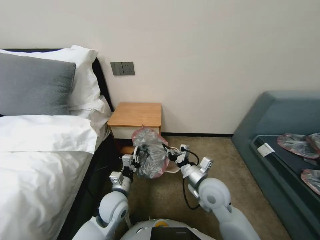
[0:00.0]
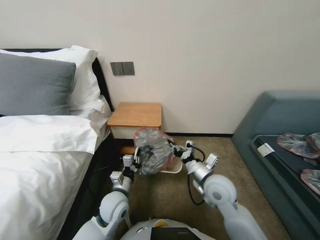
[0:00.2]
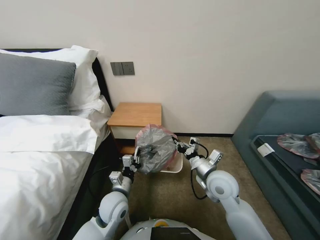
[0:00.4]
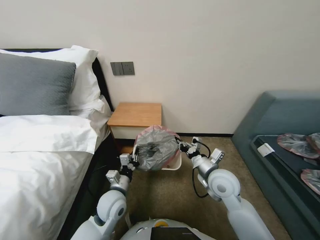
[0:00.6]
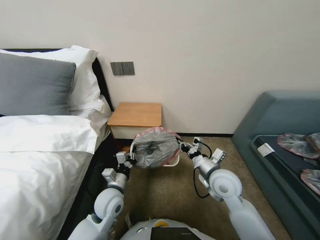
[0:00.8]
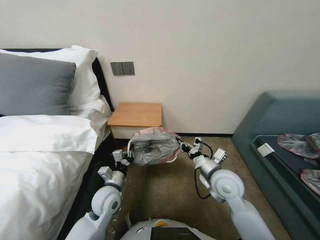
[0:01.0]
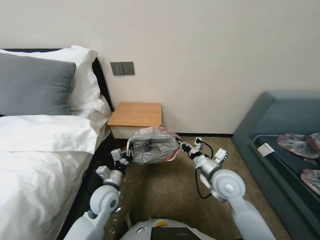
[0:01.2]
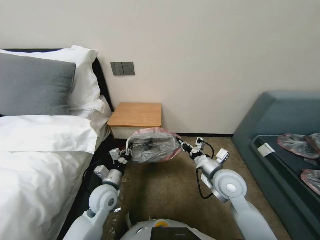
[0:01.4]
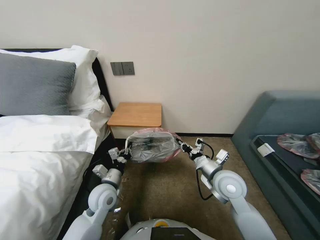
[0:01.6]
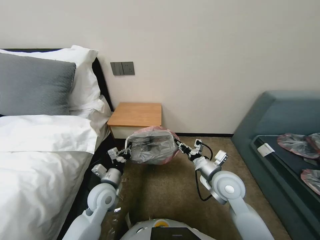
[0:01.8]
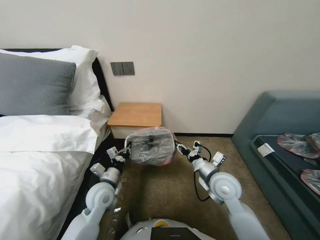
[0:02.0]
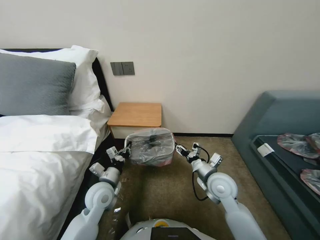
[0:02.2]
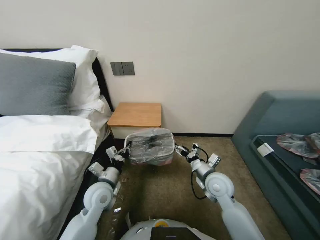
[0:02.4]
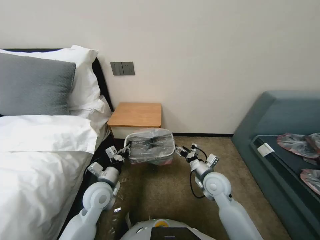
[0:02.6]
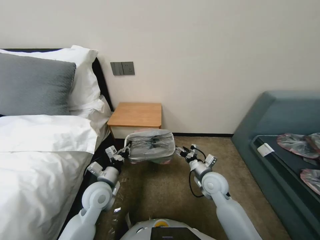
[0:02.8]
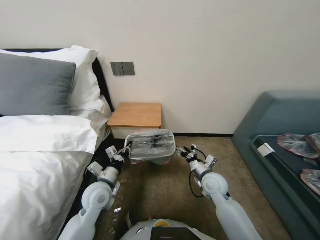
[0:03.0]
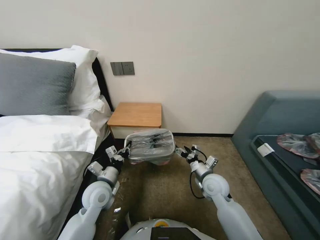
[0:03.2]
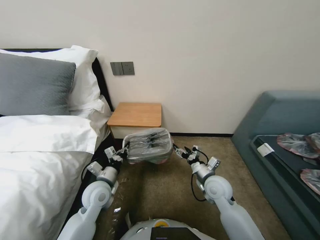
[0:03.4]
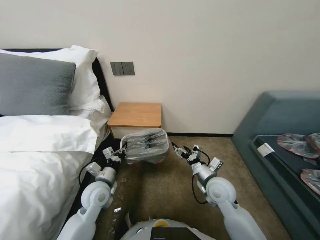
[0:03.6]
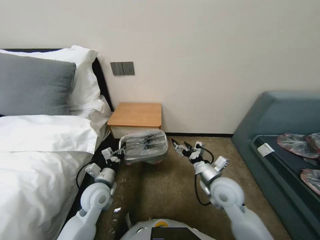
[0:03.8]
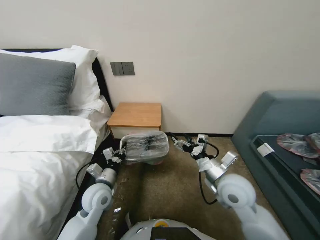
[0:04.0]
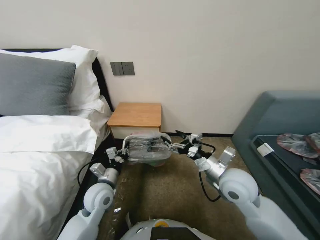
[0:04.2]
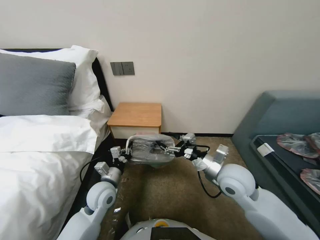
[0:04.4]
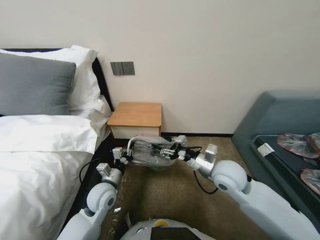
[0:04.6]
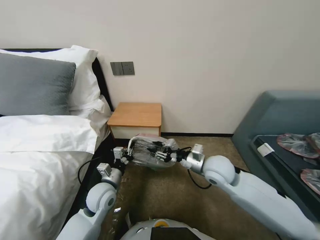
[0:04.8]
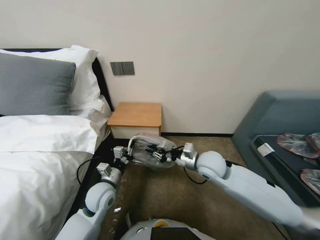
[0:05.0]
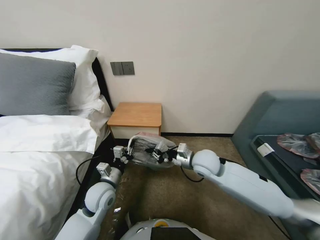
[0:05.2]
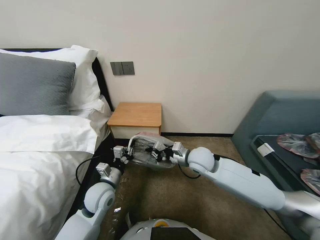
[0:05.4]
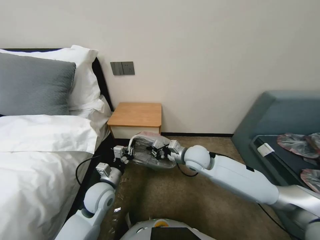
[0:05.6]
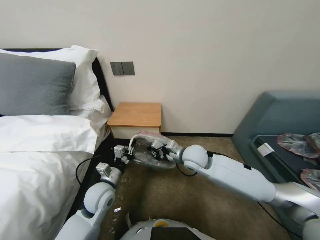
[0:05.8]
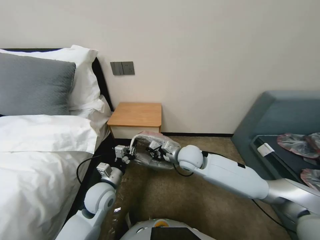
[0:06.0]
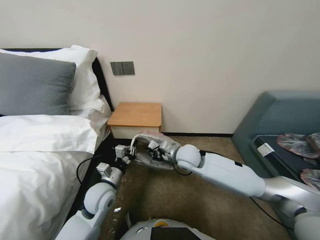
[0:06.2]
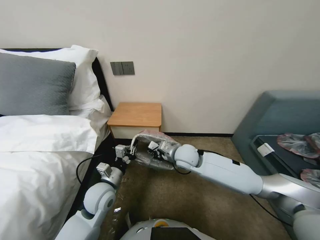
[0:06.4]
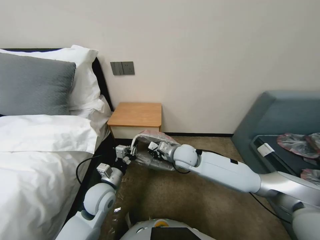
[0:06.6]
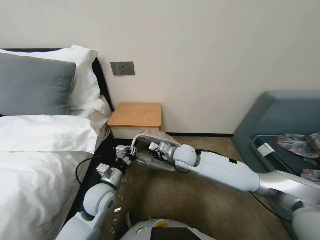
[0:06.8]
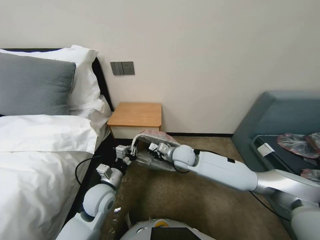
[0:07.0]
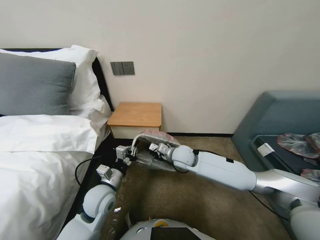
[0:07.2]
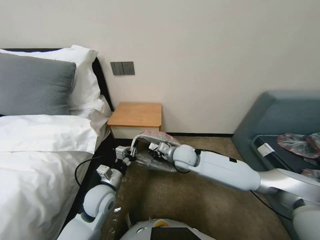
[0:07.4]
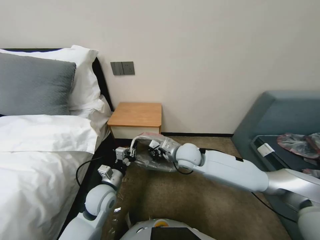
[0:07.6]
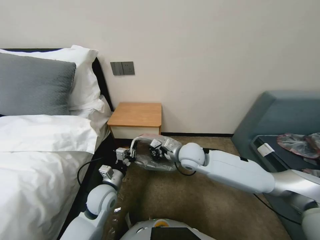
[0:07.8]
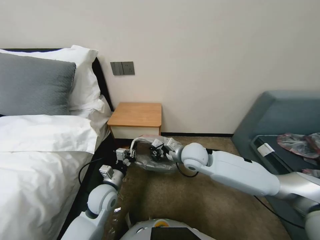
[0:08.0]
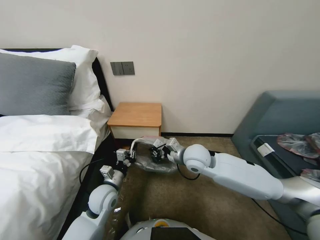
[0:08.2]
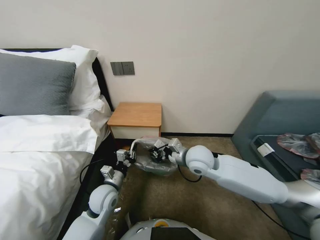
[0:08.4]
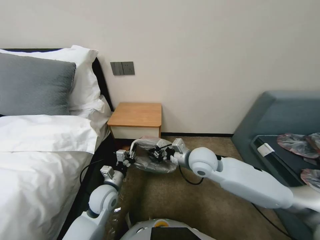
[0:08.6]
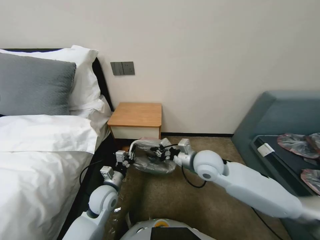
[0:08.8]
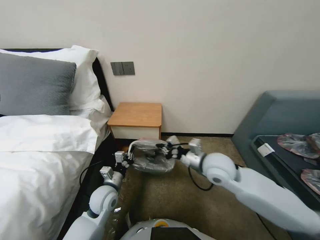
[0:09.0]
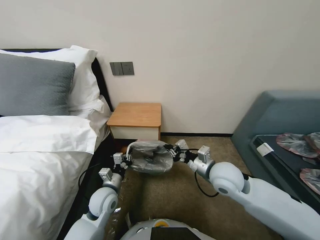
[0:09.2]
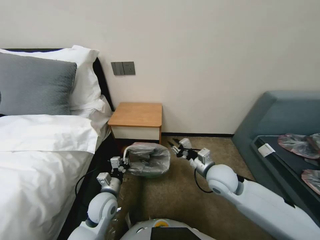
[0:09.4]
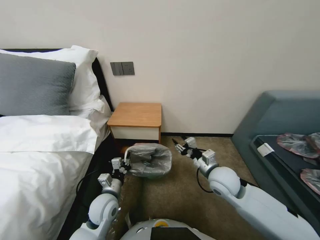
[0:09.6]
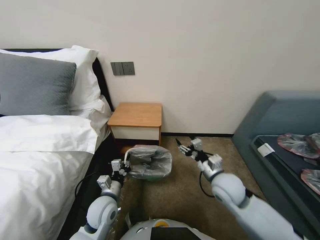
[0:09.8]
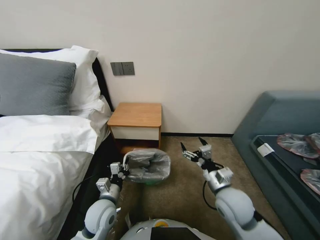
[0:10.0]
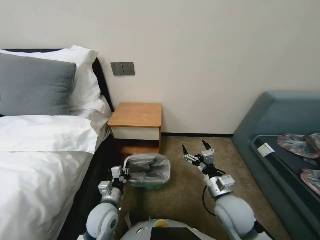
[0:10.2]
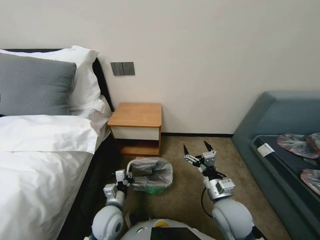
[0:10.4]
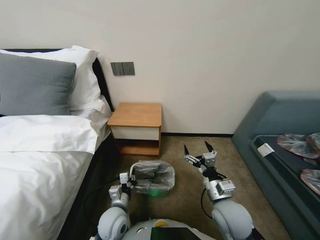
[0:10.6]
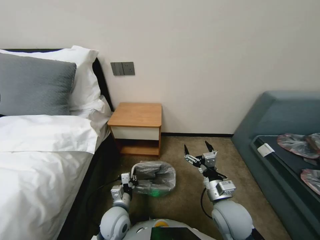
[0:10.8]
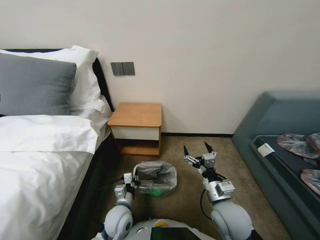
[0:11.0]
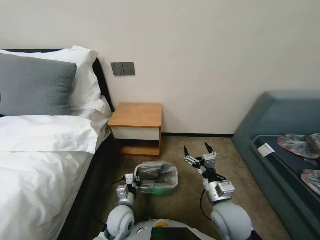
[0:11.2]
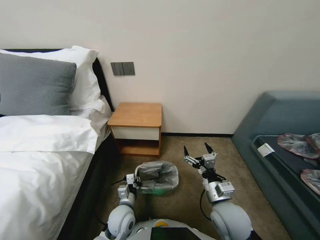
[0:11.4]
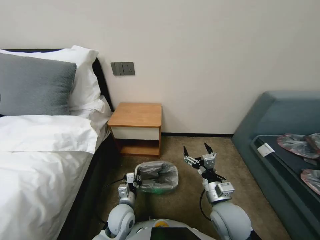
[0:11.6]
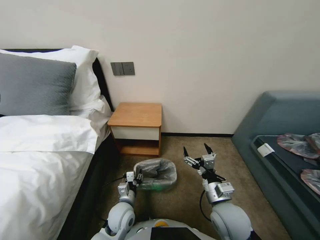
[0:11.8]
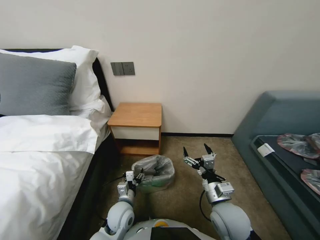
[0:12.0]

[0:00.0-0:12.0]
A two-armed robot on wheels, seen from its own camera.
Task of the whole recording: Pick up the garbage bag from the table and place it over the trash can.
0:00.0 to 0:01.6: The left gripper moves about 5 cm; the right gripper goes roughly 5 cm to the right.
0:01.6 to 0:03.0: The right gripper travels downward by approximately 10 cm, and opens up.
0:03.0 to 0:04.4: The right gripper is displaced upward by approximately 10 cm.
0:04.4 to 0:06.0: The right gripper moves to the left and forward, approximately 15 cm, and closes.
0:06.0 to 0:07.6: The grippers stay close to where they were, moving slightly.
0:07.6 to 0:09.0: The right gripper is displaced to the right and backward by roughly 10 cm.
0:09.0 to 0:10.4: The left gripper is displaced backward by roughly 5 cm. The right gripper is displaced backward and downward by about 15 cm, and opens.
0:10.4 to 0:12.0: The left gripper moves some 5 cm, and opens.

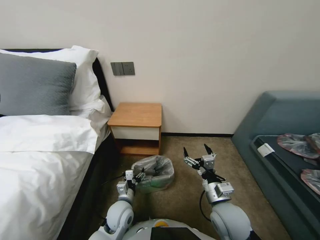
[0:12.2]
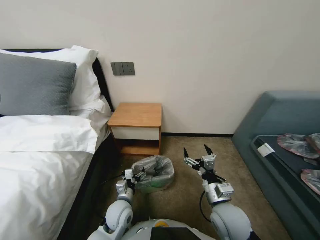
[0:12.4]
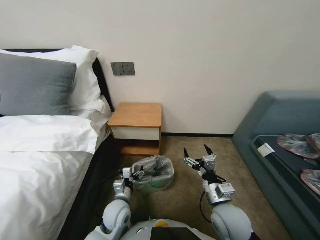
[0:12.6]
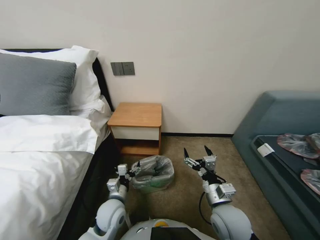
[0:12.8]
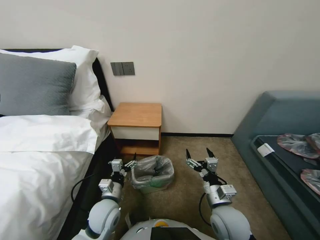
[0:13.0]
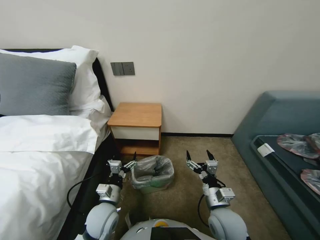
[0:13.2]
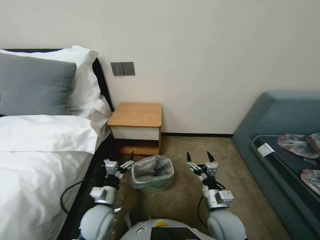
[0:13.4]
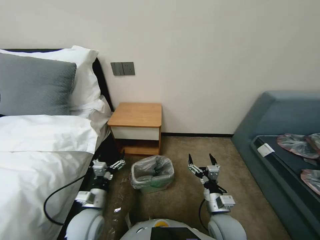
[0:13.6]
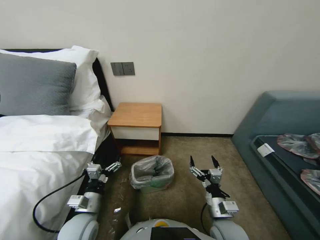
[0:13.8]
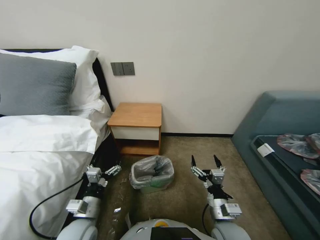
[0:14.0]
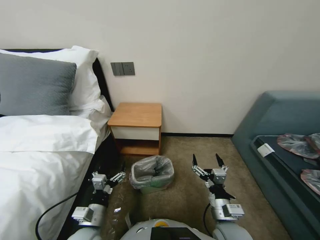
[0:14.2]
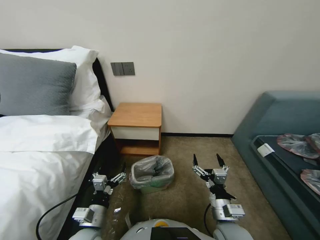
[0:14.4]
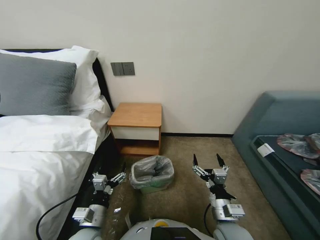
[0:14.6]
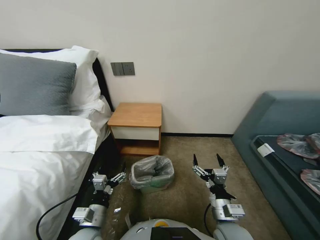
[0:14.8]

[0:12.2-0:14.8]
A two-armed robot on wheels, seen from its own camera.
Task of the whole recording: Pick up the garbage bag from the table and place it over the trash can.
0:12.2 to 0:13.4: The left gripper moves upward, about 5 cm.
0:13.4 to 0:14.8: The left gripper moves backward, some 5 cm.
